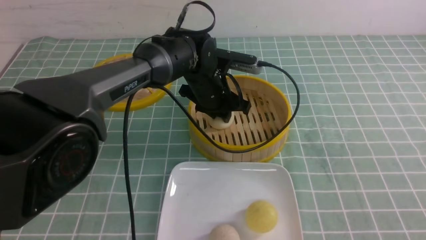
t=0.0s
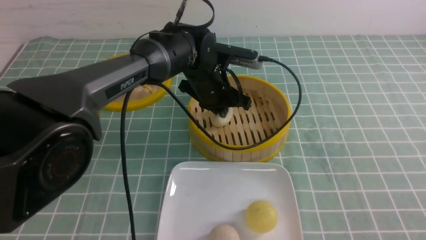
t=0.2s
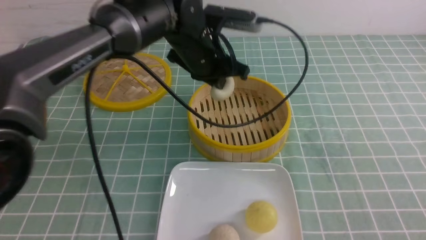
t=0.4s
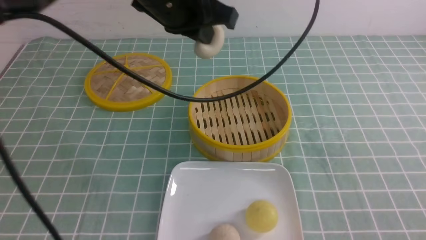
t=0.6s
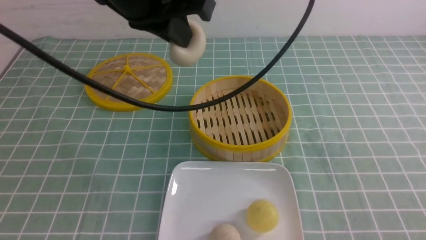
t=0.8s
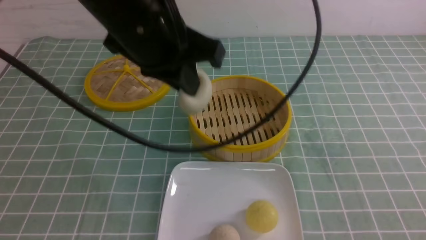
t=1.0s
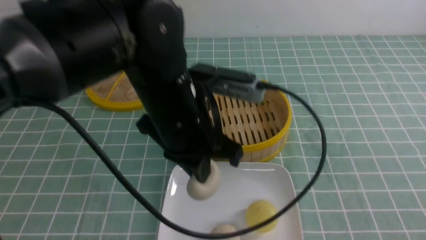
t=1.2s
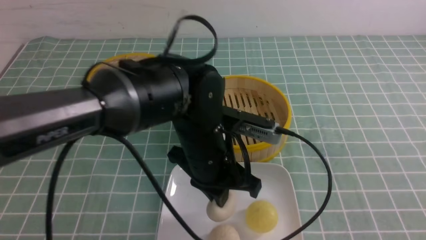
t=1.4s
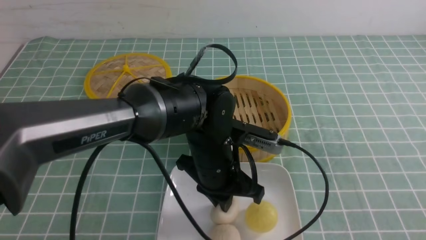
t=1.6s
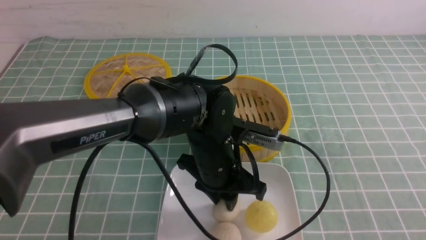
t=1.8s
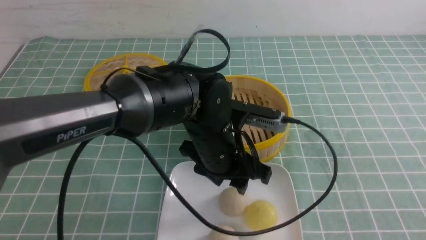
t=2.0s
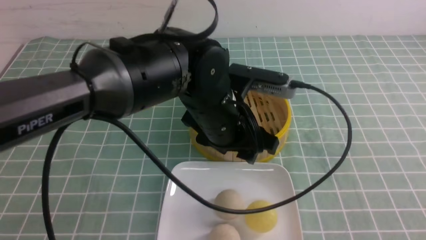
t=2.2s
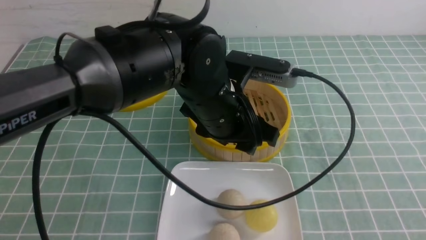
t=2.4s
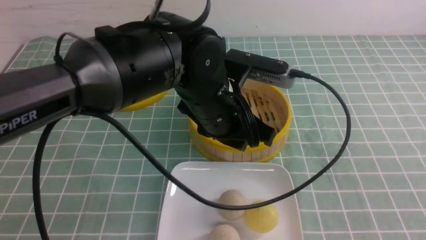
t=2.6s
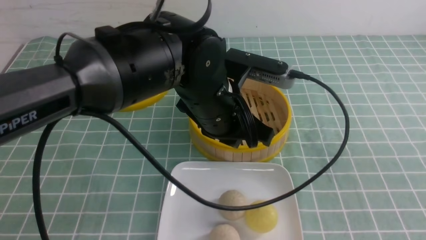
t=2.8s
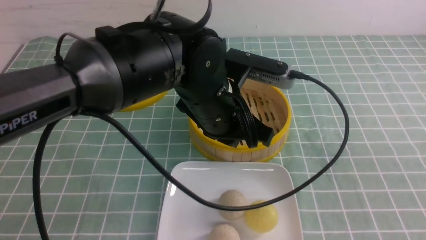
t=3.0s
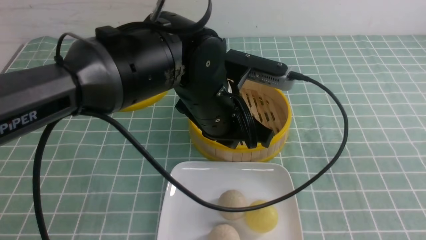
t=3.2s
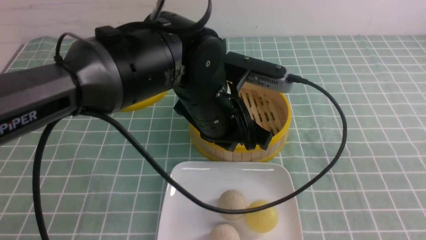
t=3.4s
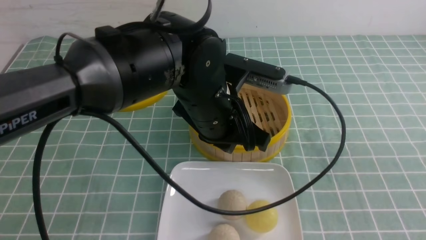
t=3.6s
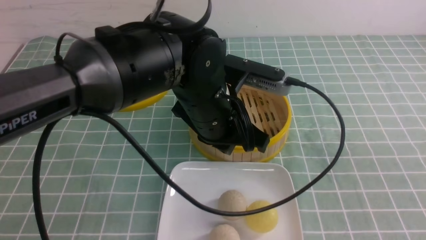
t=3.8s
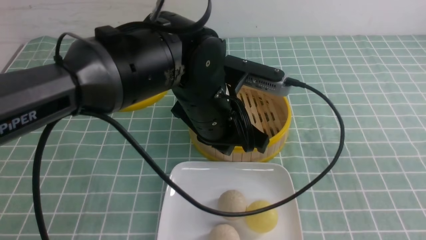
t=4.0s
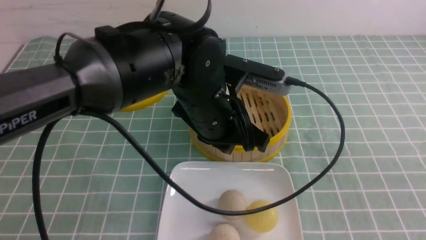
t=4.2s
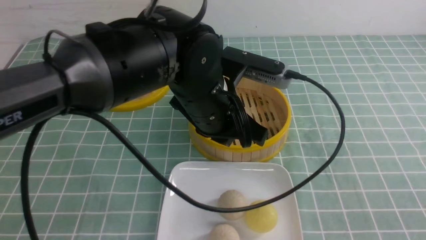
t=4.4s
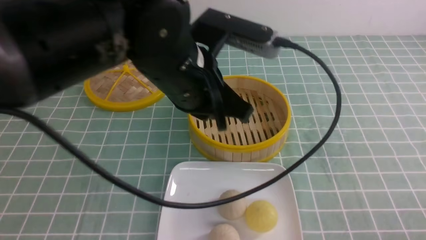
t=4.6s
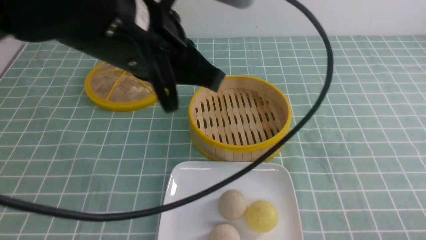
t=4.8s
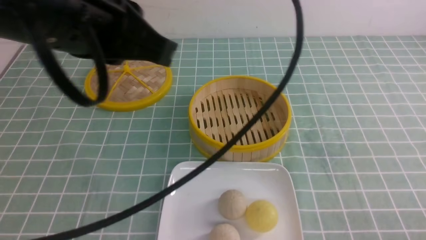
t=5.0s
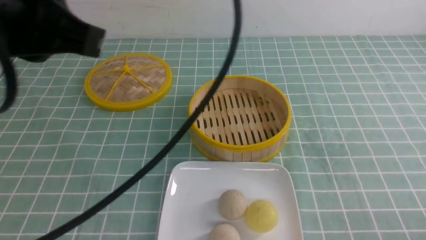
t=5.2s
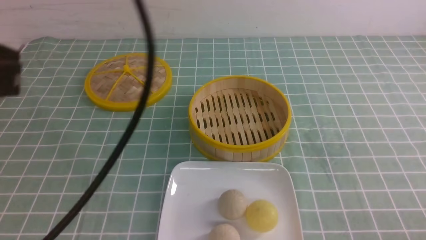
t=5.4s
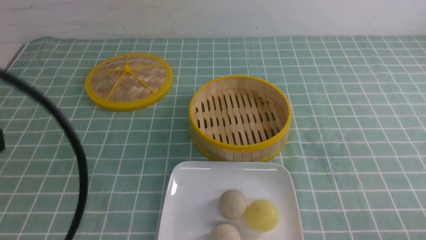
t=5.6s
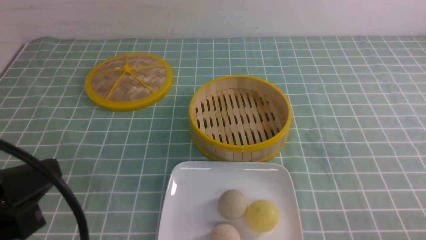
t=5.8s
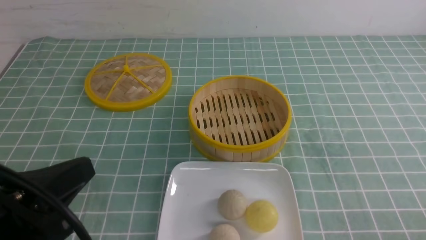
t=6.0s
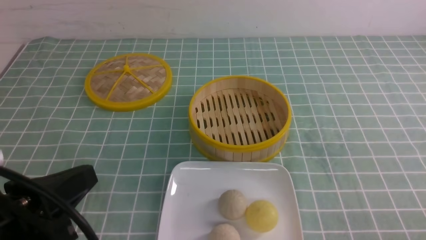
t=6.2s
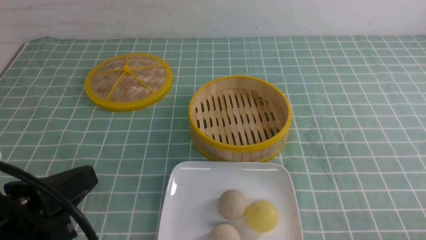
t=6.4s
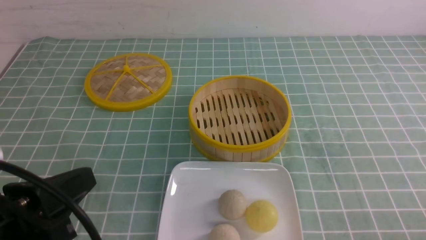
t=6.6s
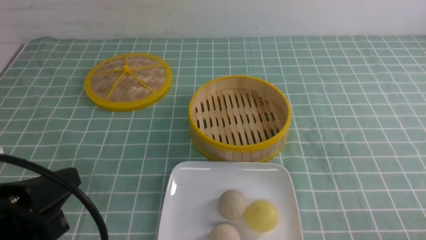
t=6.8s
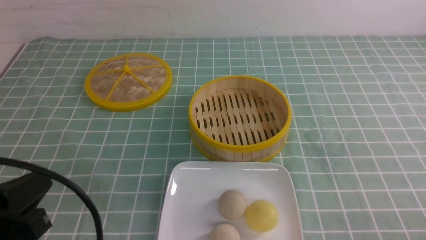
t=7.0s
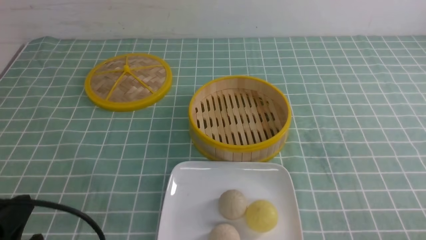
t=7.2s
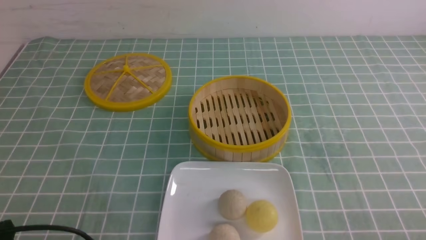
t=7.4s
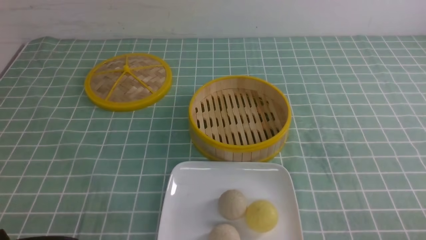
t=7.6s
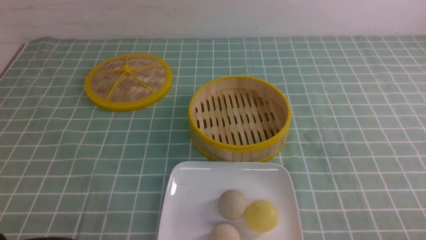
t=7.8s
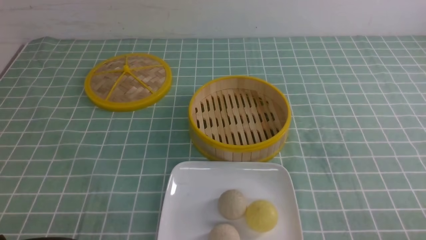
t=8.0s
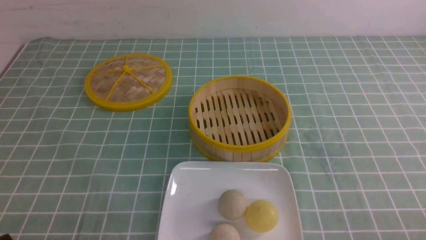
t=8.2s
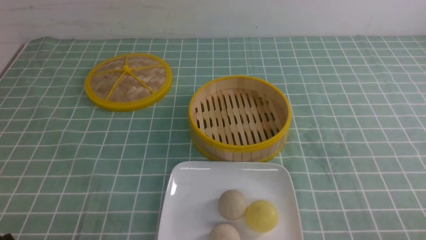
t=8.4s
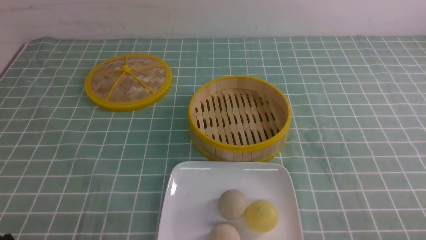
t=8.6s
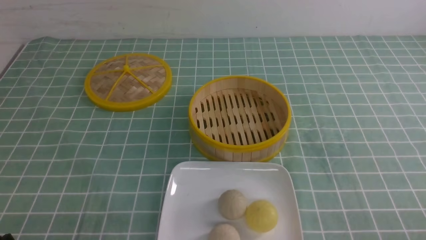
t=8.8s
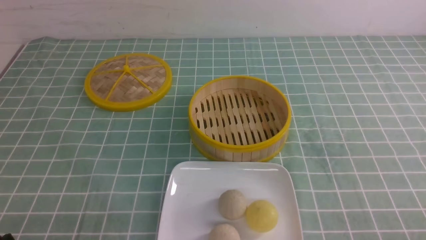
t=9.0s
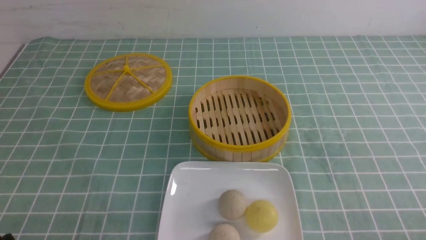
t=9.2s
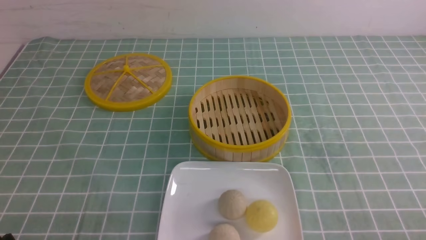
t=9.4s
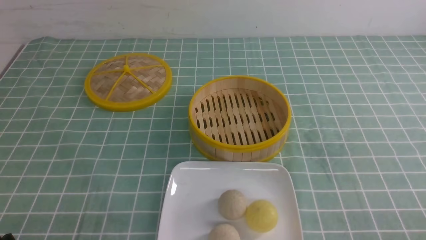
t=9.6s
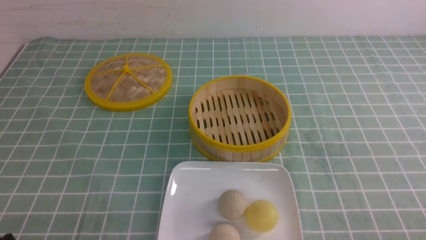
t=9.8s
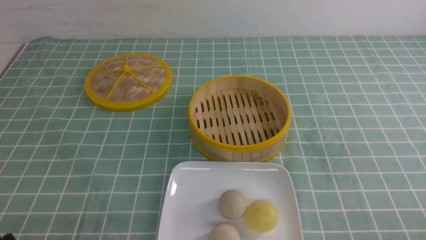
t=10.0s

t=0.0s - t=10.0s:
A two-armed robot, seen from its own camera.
Step, t=0.4s - t=1.8s: use the left arm to put the steamed stuffed bun into the plate.
t=0.0s - t=1.4s: The left gripper moves backward, some 15 cm, travels upward and back again, about 20 cm each way, and closes.
t=1.4s - t=2.8s: The left gripper goes some 5 cm upward, and opens and closes again.
t=2.8s - t=4.2s: The grippers stay close to where they were, moving slightly.
t=4.2s - t=5.8s: The right gripper travels downward by roughly 10 cm; the left gripper travels to the left and backward by approximately 30 cm.
t=5.8s - t=7.2s: The left gripper is displaced downward by roughly 10 cm.
t=7.2s - t=8.6s: The left gripper shifts some 5 cm downward.
t=8.6s - t=10.0s: Both grippers stay about where they are.
